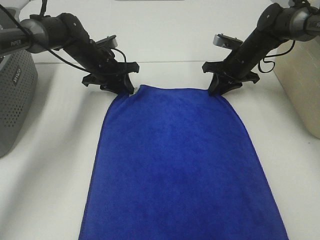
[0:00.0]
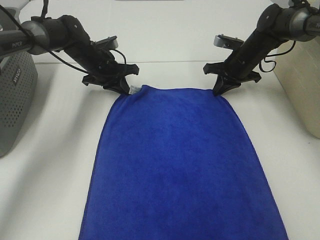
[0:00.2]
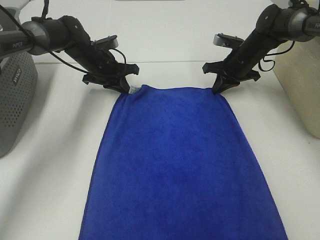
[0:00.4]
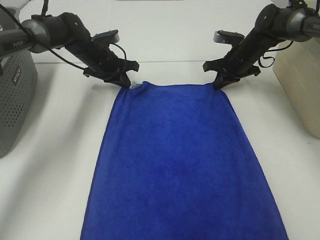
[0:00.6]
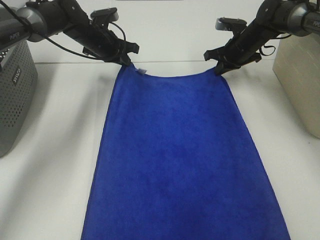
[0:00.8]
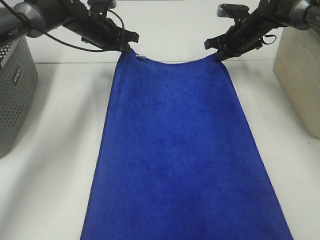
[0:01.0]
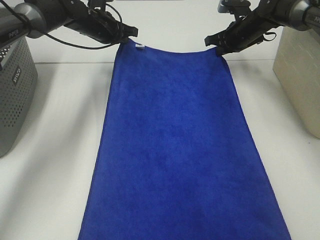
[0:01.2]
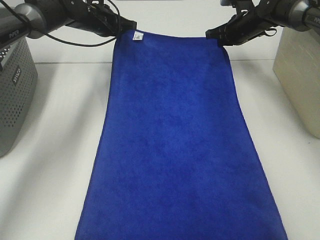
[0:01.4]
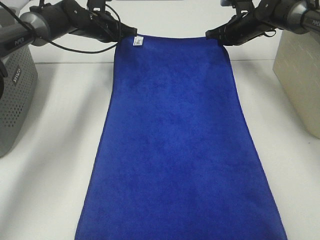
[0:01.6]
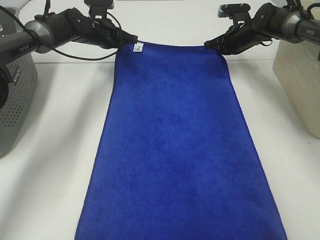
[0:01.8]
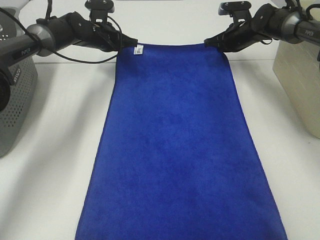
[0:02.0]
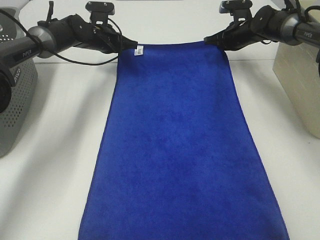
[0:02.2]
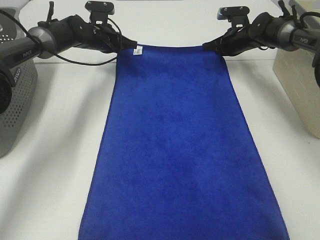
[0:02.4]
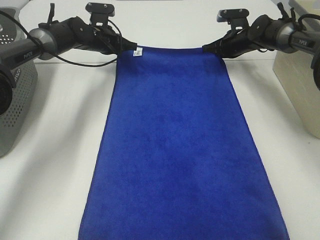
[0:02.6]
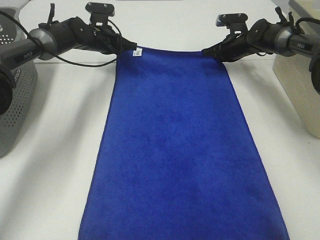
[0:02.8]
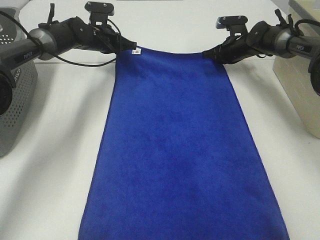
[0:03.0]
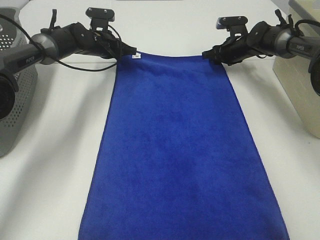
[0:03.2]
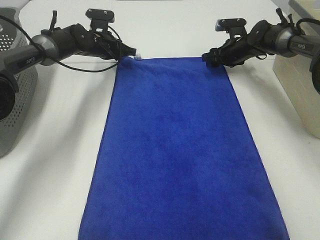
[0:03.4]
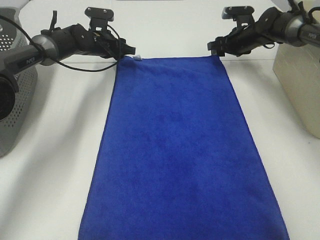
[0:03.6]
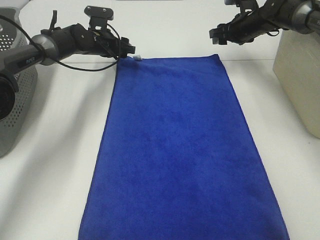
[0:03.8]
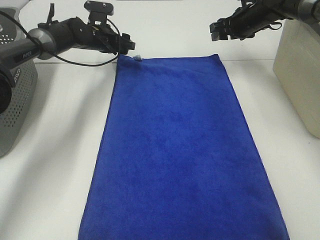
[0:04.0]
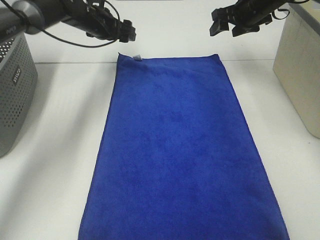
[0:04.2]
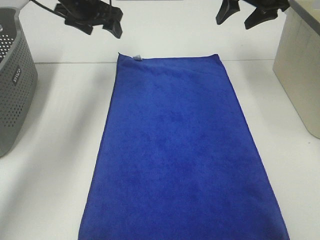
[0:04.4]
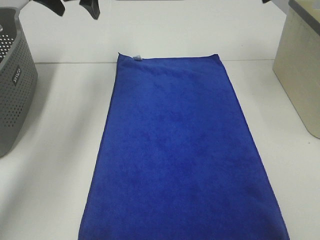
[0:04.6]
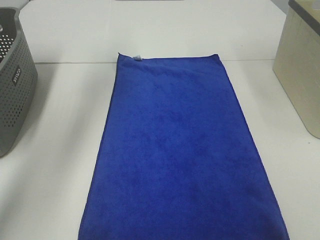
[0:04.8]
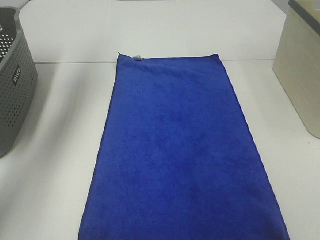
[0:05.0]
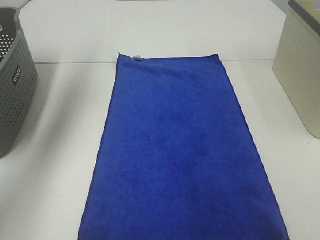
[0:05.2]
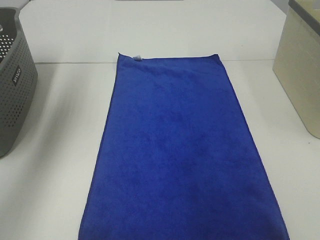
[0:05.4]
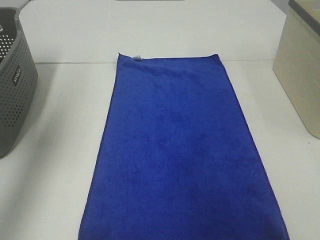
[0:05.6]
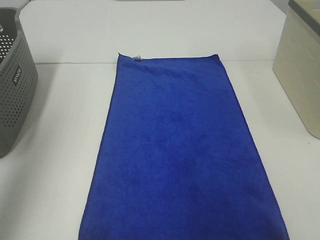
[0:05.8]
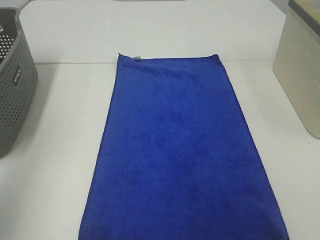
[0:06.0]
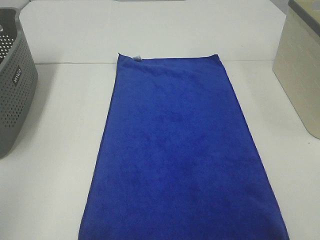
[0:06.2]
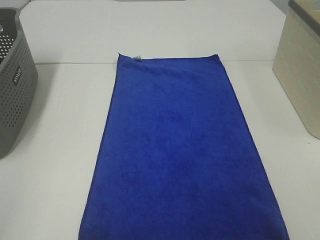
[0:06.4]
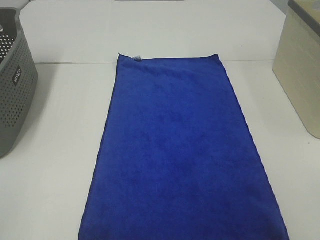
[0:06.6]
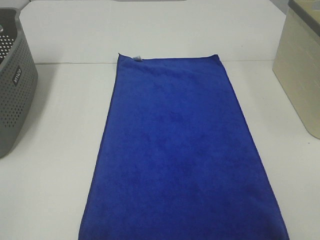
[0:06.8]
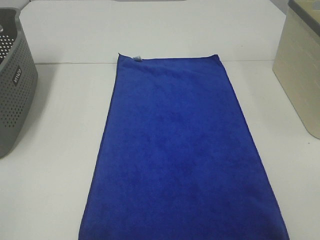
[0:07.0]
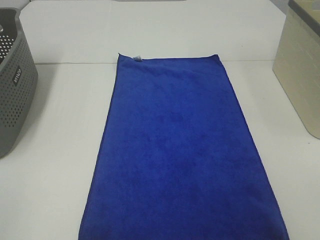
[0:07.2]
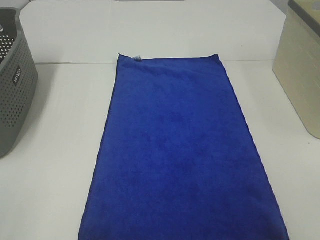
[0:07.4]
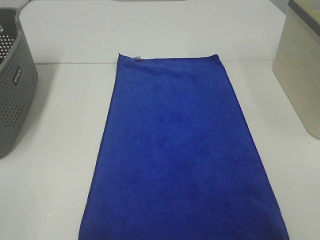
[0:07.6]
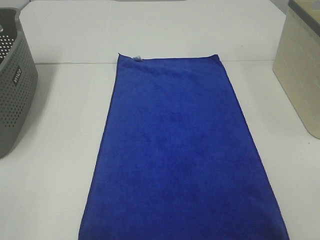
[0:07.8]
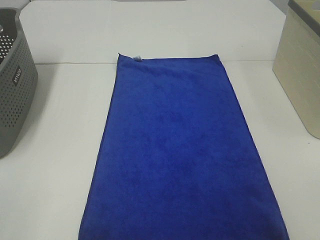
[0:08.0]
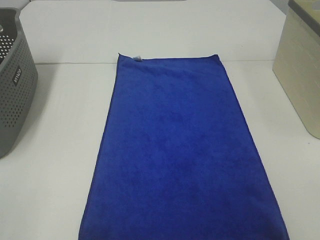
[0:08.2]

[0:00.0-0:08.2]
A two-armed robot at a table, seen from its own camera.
Task of the whole recording: Remove the towel and place it.
0:00.0 to 0:01.6: The left gripper heads forward and upward, covering approximately 10 cm; the right gripper travels forward by roughly 5 cm.
0:01.6 to 0:03.2: The right gripper is displaced downward by some 5 cm, and opens its fingers.
0:03.2 to 0:05.0: Both grippers move upward and backward, some 35 cm. The left gripper opens. Meanwhile the right gripper opens.
0:05.0 to 0:06.6: The left gripper travels backward by approximately 50 cm.

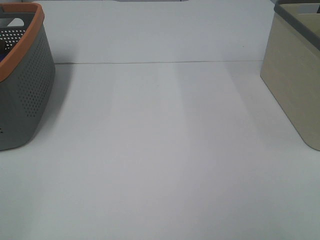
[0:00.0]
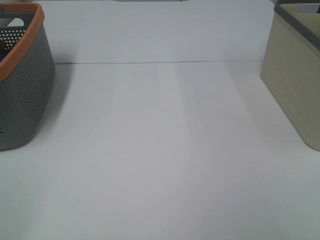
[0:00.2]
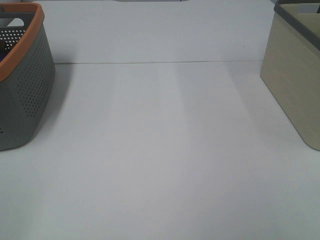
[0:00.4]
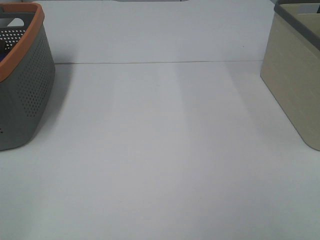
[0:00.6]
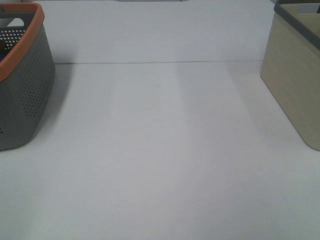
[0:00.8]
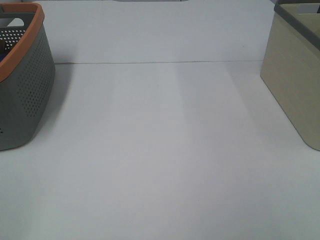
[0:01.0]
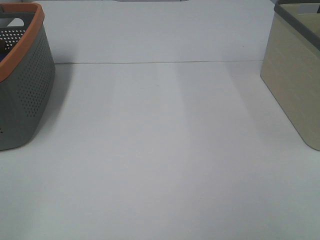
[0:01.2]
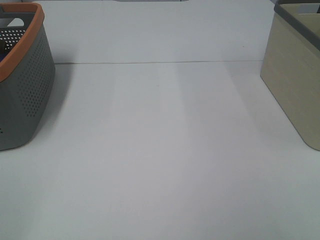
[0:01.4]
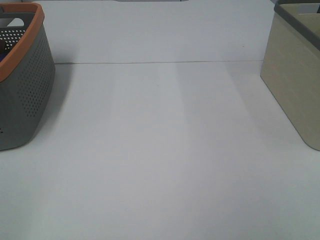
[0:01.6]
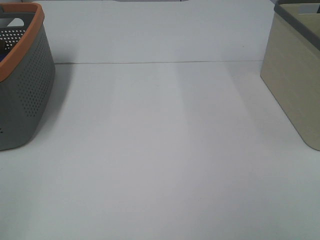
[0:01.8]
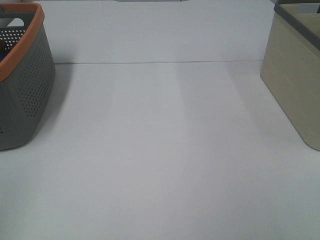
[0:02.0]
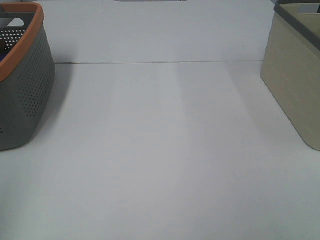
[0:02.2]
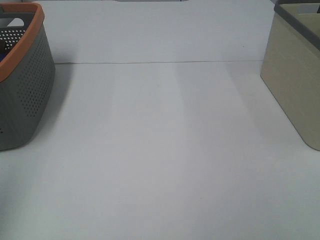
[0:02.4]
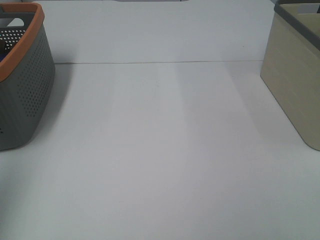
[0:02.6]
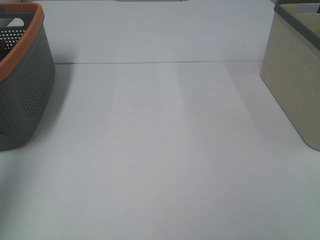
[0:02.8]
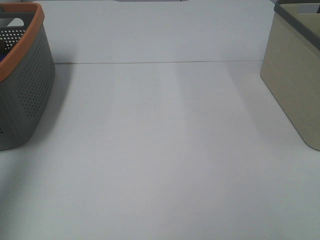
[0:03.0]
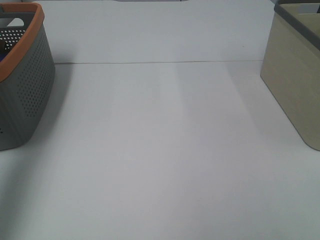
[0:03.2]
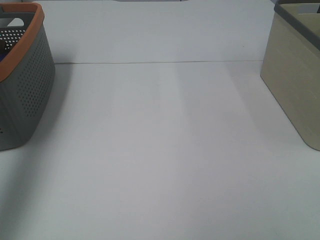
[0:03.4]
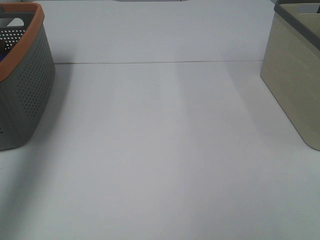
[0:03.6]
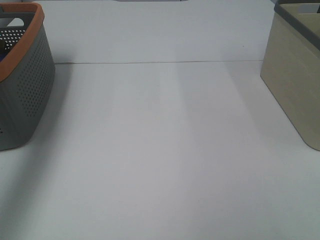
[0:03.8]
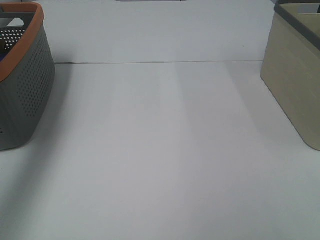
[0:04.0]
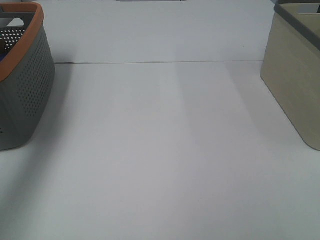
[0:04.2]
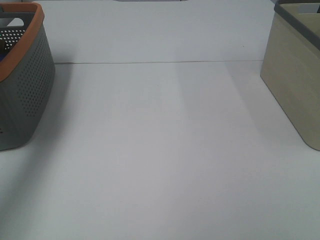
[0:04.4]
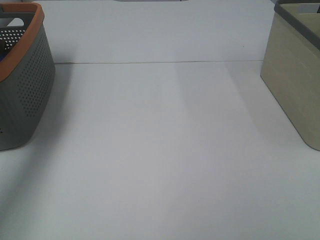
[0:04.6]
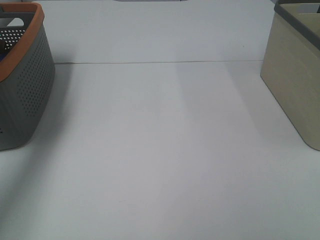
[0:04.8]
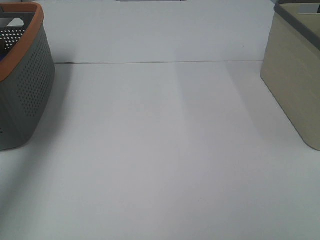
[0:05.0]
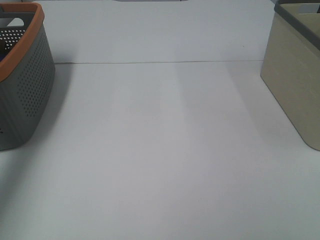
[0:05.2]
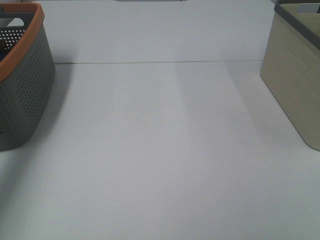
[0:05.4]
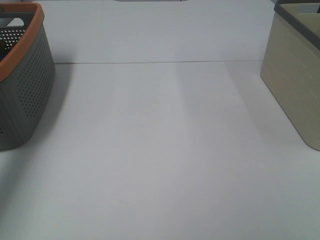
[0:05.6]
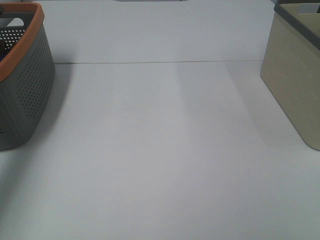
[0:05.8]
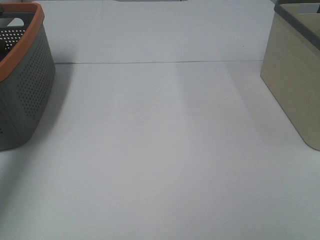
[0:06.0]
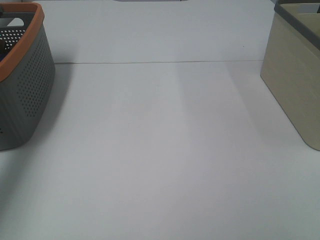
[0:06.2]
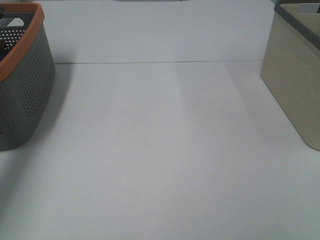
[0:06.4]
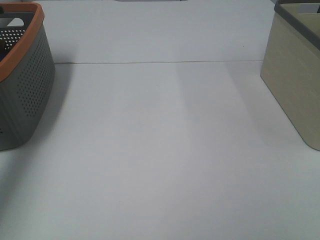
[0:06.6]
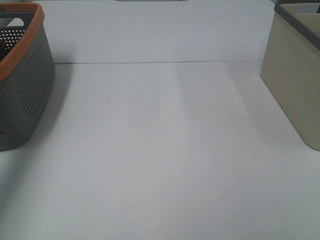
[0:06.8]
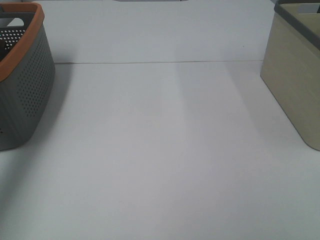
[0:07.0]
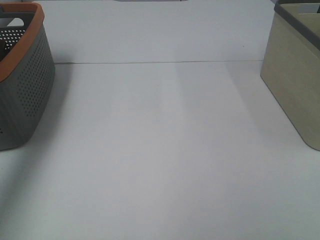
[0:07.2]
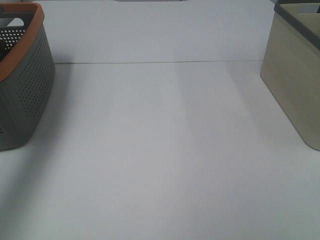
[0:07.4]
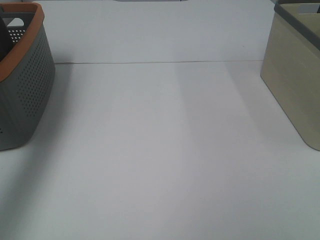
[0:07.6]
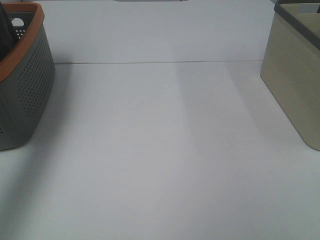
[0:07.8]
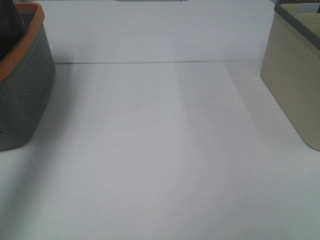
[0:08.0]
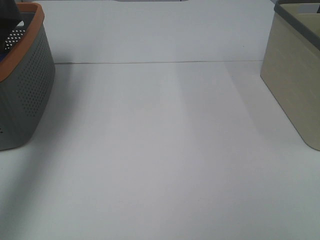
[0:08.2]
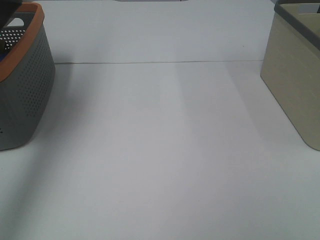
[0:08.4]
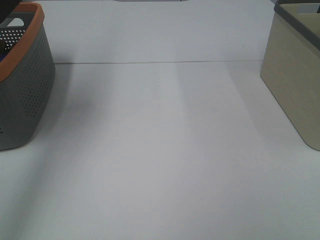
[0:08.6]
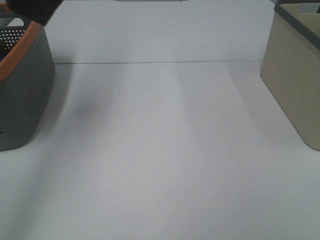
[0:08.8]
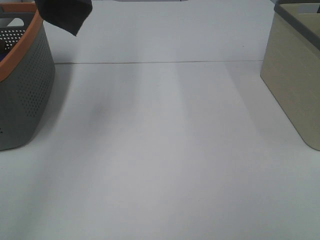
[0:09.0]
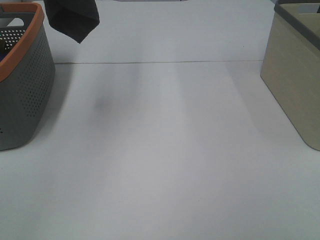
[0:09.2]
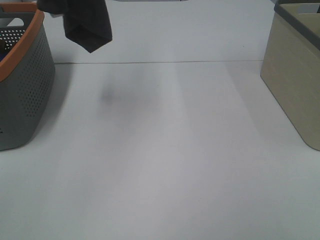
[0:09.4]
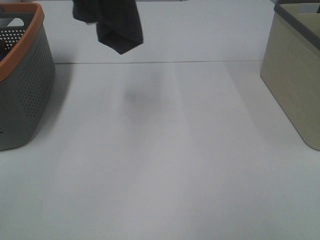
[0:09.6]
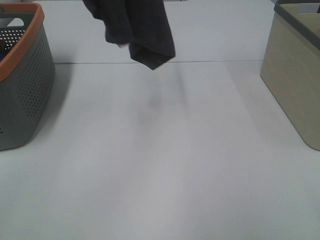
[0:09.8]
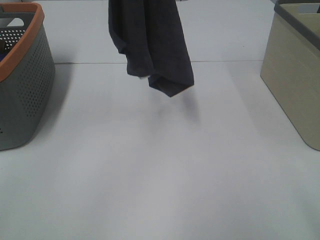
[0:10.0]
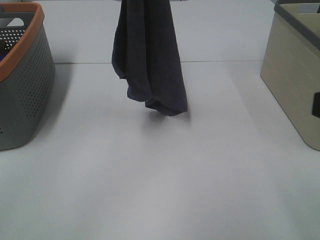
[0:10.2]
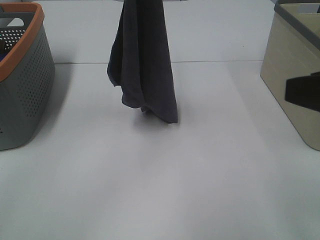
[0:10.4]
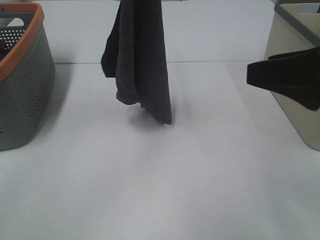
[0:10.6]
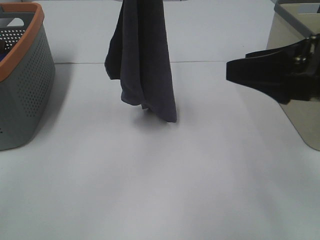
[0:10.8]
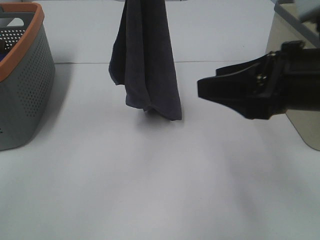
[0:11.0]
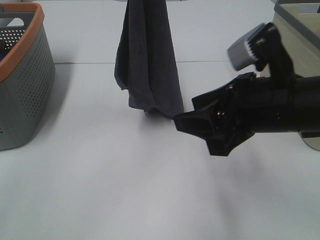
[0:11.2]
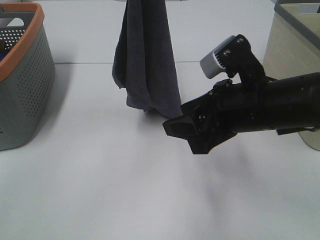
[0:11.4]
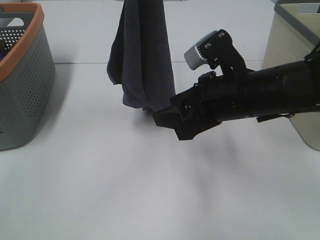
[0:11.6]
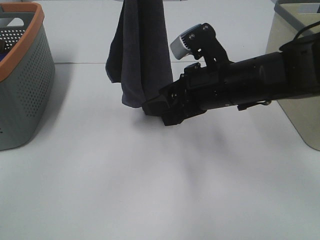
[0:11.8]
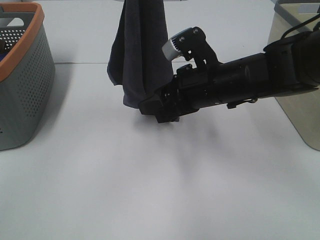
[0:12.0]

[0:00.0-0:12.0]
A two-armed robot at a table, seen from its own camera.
Task of the whole recording: Remove the towel and place it.
0:00.0 to 0:01.6: The two grippers keep their place.
0:01.6 to 0:03.0: The left gripper goes roughly 20 cm forward and upward.
0:03.0 to 0:04.4: The left gripper shifts roughly 25 cm forward.
0:04.4 to 0:06.0: The left gripper is displaced downward by approximately 10 cm.
0:06.0 to 0:07.6: The left gripper travels upward by roughly 20 cm, and closes.
0:07.6 to 0:09.0: The left gripper shifts about 15 cm upward, to the right and backward.
0:09.0 to 0:10.4: The right gripper heads forward and to the left, covering about 15 cm; the left gripper shifts some 20 cm downward and to the right.
0:10.4 to 0:12.0: The right gripper is displaced forward, to the left and downward by some 25 cm.

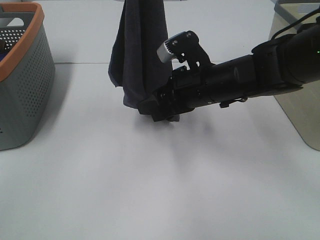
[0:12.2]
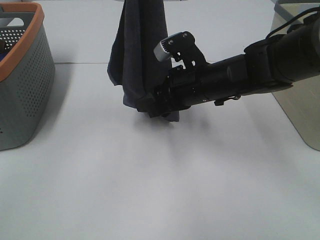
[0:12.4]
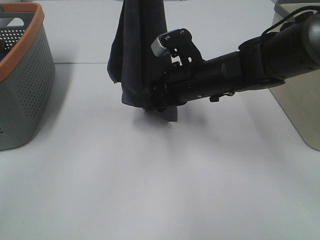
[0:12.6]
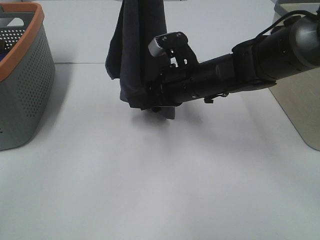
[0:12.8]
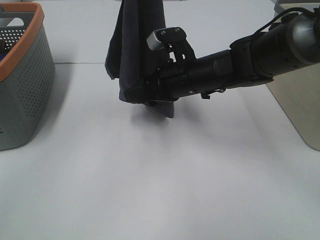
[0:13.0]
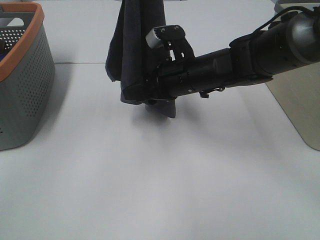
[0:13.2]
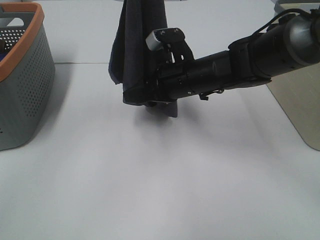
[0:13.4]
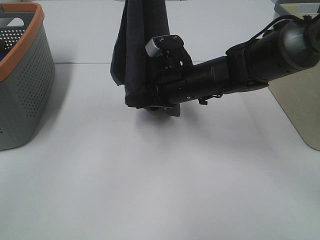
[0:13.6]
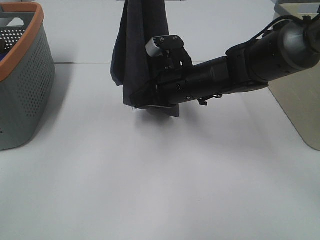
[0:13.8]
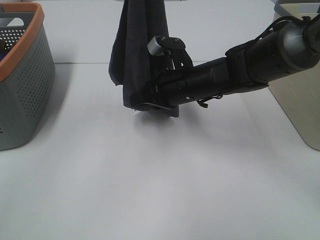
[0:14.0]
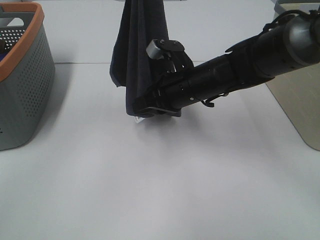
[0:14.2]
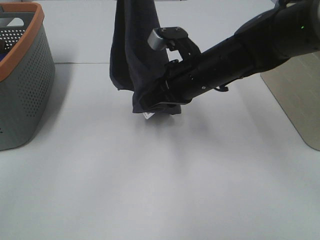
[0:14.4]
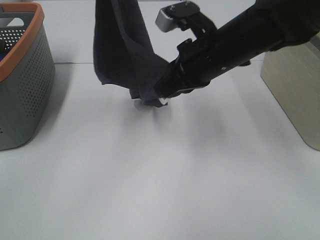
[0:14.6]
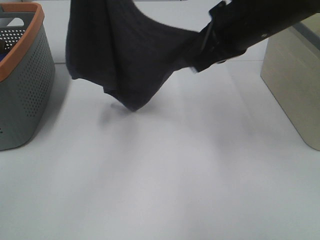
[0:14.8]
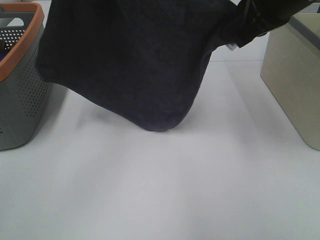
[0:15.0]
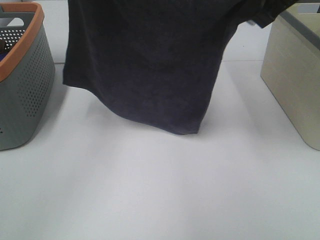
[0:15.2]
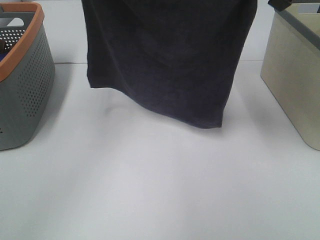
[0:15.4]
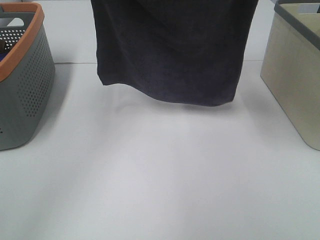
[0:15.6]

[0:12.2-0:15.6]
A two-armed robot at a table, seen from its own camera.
Task of the whole recording: Remove the towel and place it.
Step, 0:12.8 to 0:15.2: Left hand: spread the grey towel flat on the table.
Step, 0:12.8 to 0:15.2: Right hand: spread the grey towel flat on the table.
0:12.2 to 0:13.8: The right gripper closes its fingers.
0:13.8 to 0:15.6: The right gripper goes roughly 30 cm upward and to the right. Meanwhile the left gripper goes about 10 cm to the left.
